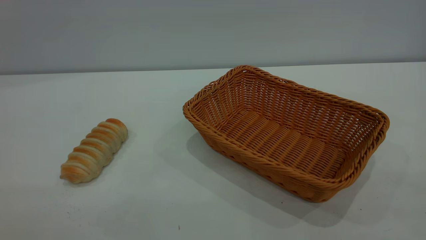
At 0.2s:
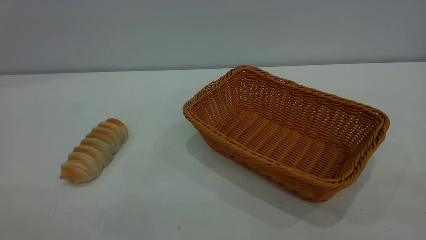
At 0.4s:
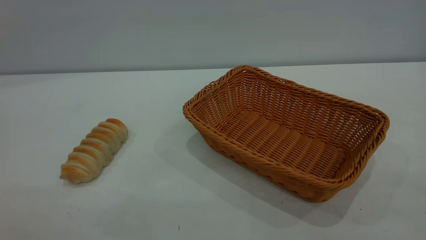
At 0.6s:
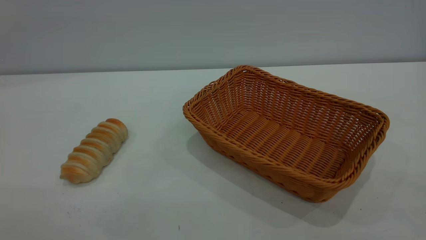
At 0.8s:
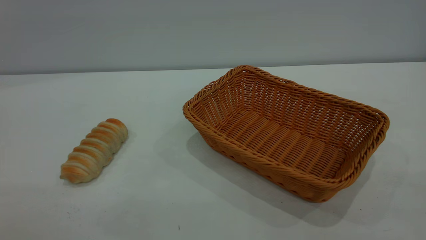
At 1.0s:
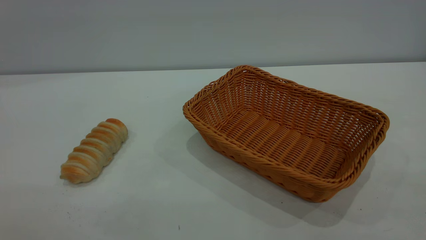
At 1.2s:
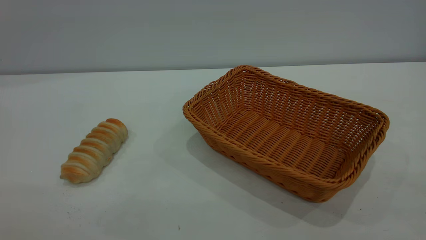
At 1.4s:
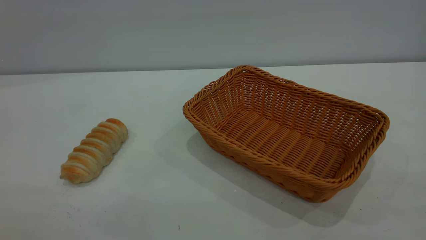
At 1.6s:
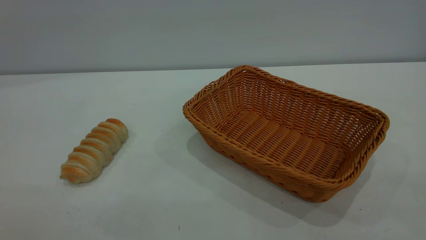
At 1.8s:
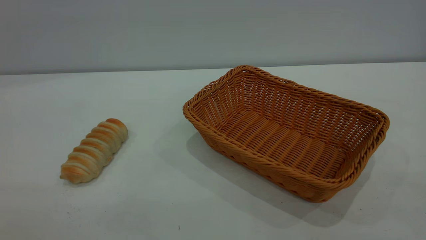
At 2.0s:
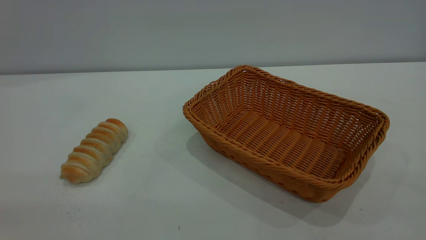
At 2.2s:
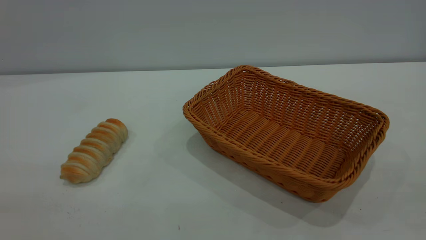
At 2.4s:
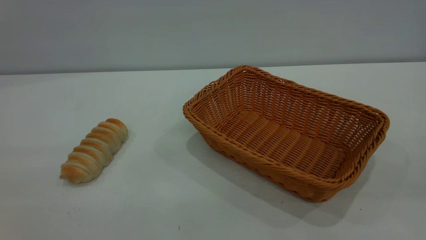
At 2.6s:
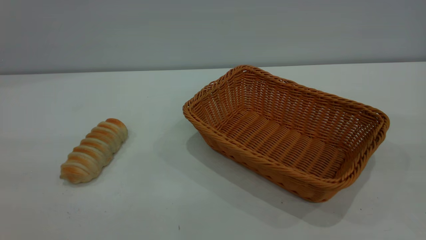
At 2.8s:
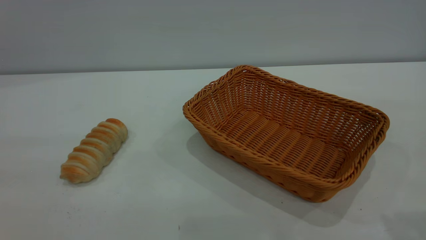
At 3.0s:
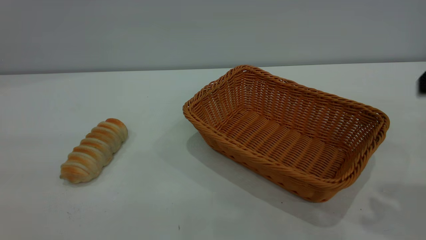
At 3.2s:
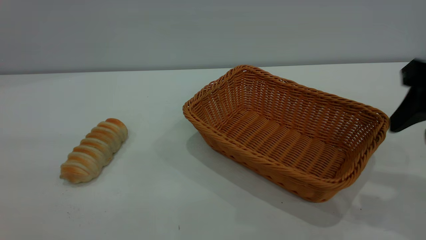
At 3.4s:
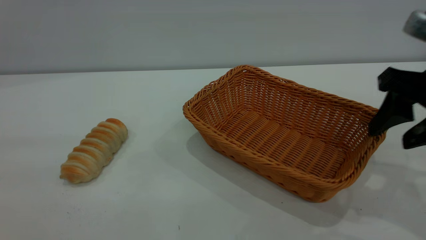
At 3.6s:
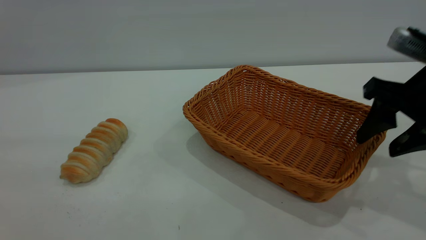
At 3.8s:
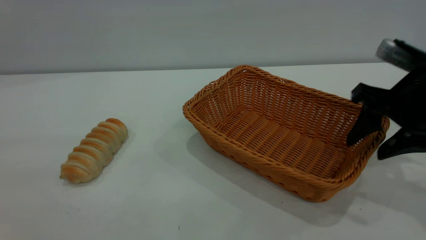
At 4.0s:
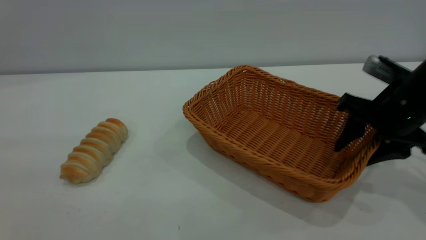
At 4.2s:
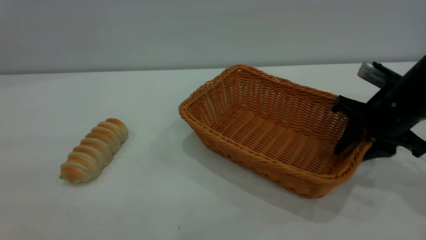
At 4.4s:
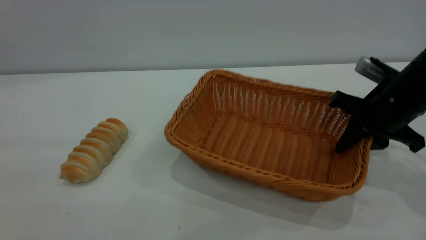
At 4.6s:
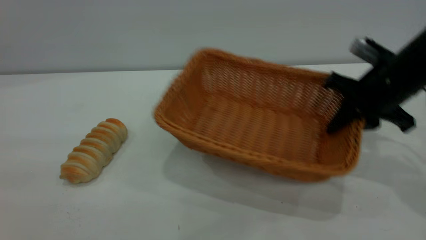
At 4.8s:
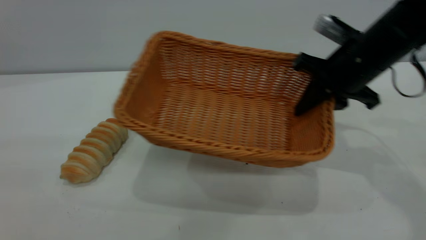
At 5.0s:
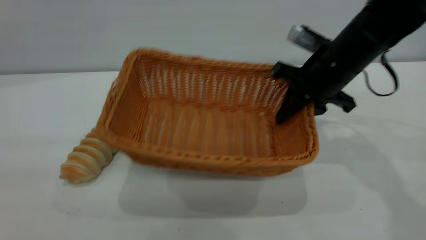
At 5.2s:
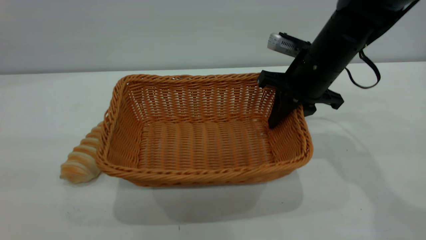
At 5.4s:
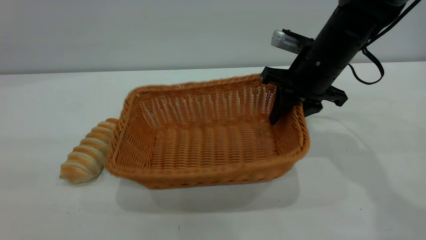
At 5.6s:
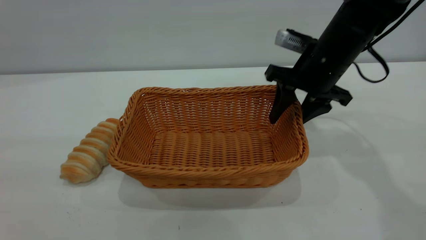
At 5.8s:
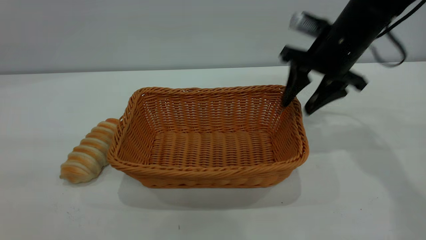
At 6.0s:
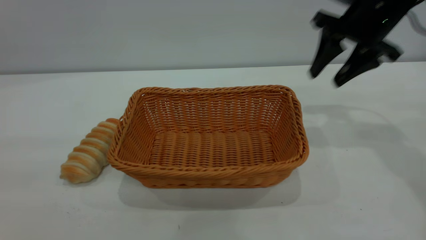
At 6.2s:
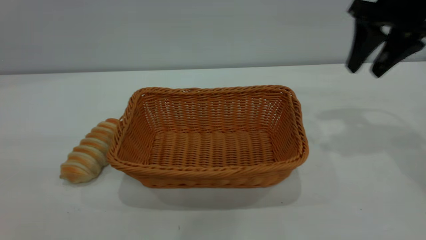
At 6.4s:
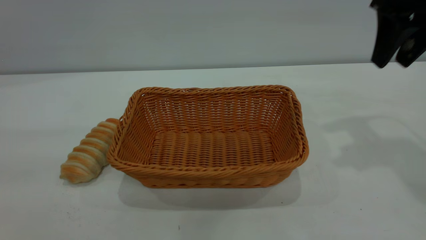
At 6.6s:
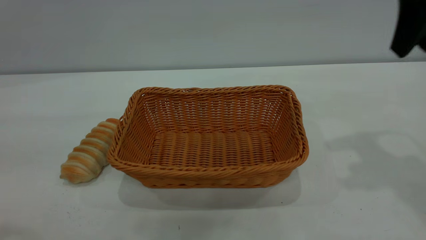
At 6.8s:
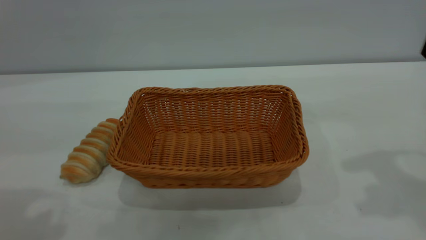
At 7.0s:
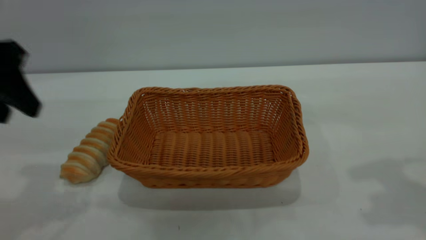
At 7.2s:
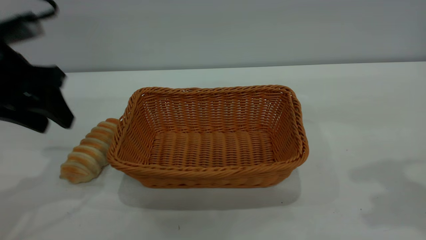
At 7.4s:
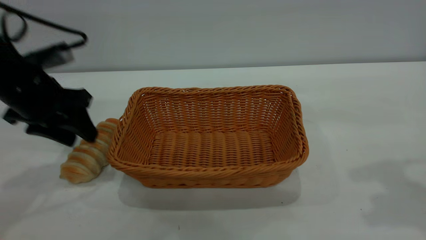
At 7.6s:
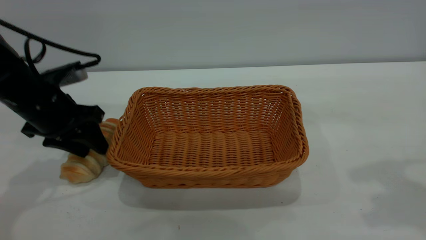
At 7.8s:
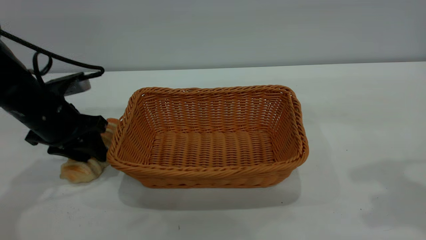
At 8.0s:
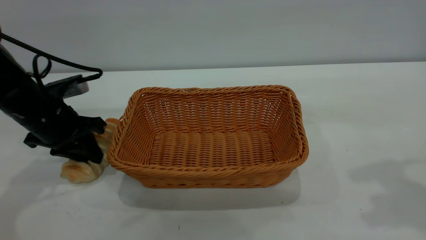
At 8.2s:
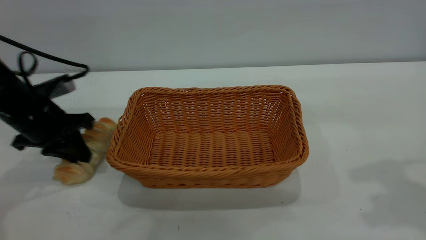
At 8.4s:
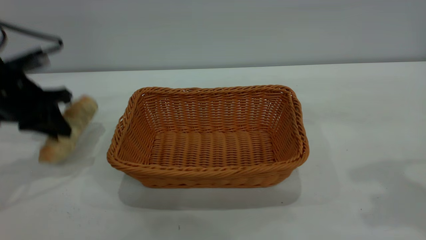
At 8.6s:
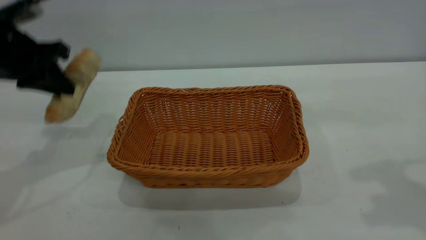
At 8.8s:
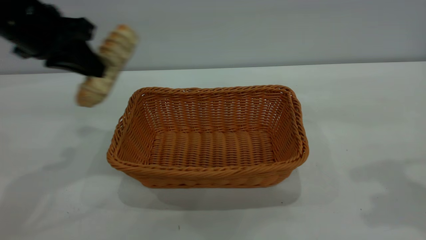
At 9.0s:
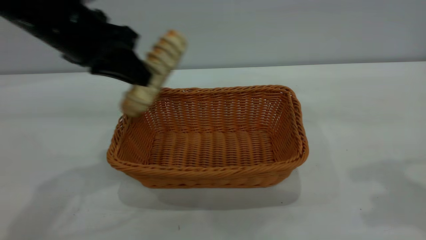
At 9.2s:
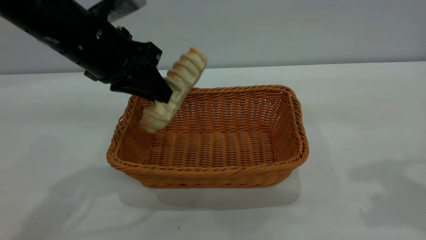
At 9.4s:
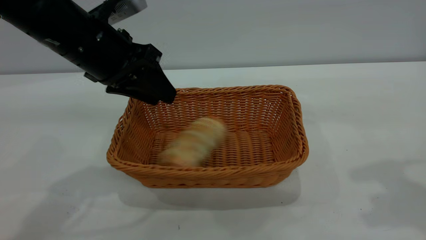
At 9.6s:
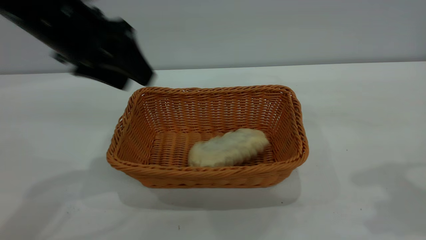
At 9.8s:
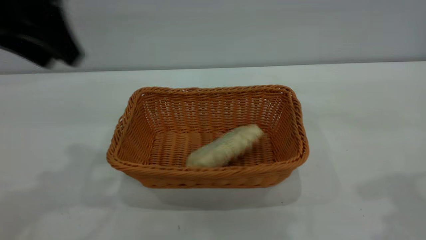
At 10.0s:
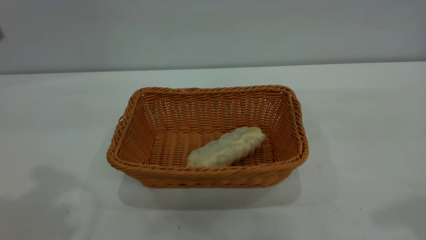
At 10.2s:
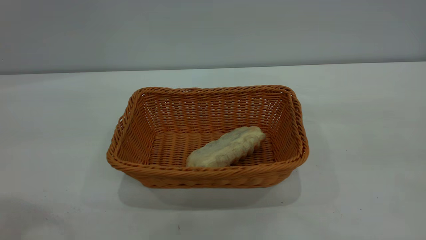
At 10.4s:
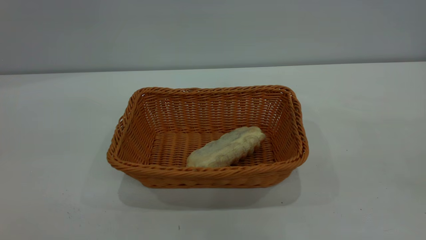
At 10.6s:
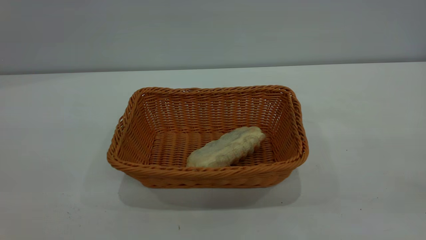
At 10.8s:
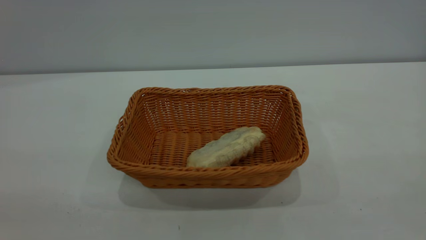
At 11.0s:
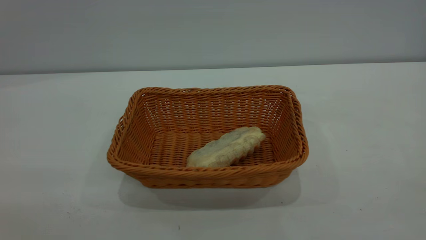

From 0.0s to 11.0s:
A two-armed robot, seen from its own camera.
Task of the whole recording: One hand grasps the yellow basket and places it in the middle of the table, while the other hand picks up the long bread and puts it into the yellow basket.
Step, from 0.0s to 5.8s: Move the basket to the center of view.
Step, from 8.6s to 9.6s: place the bread into the basket.
From 0.0s to 1.6s: Both grippers stay put.
From 1.6s to 3.2s: The right gripper moves forward and downward, roughly 30 cm.
From 3.2s to 4.8s: The right gripper goes approximately 15 cm forward and to the left, and closes its fingers.
From 4.8s to 6.2s: The right gripper travels upward and to the right by roughly 10 cm, and opens.
From 6.2s to 7.8s: The left gripper goes some 40 cm forward and downward. Meanwhile the right gripper moves backward and upward, some 15 cm.
From 7.8s to 9.4s: The left gripper moves upward and to the right, some 15 cm, and closes, then reopens.
From 9.4s to 11.0s: The right gripper goes about 30 cm backward. The left gripper moves backward and upward, some 35 cm.

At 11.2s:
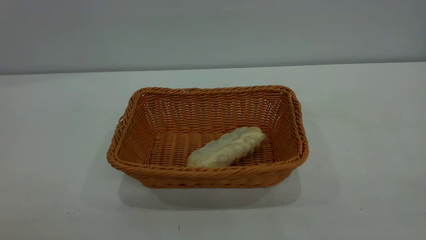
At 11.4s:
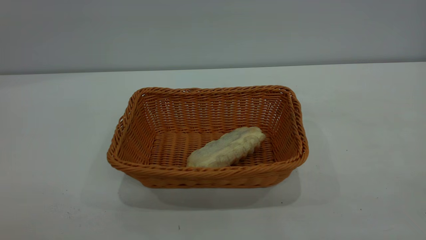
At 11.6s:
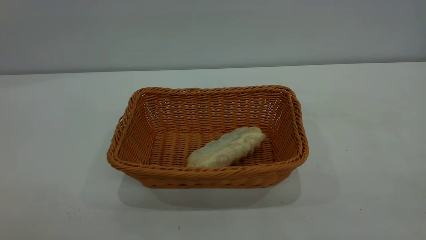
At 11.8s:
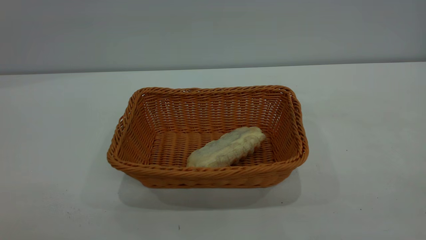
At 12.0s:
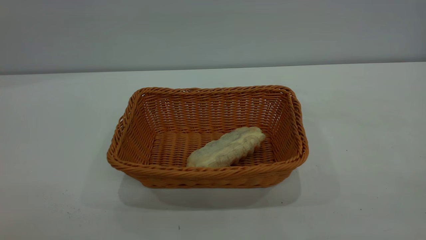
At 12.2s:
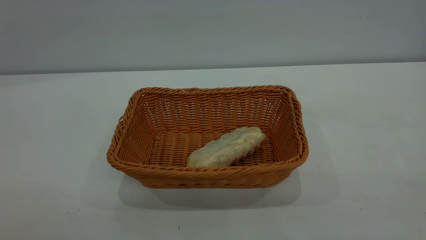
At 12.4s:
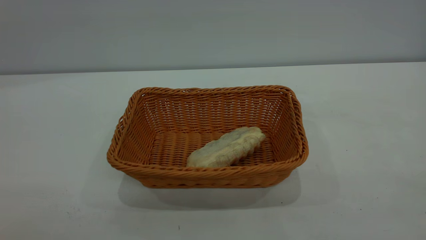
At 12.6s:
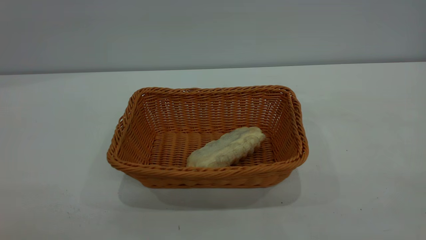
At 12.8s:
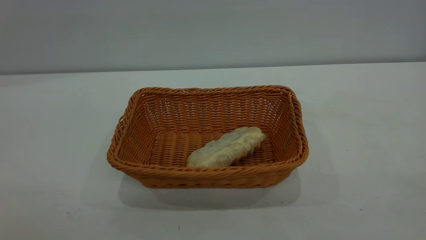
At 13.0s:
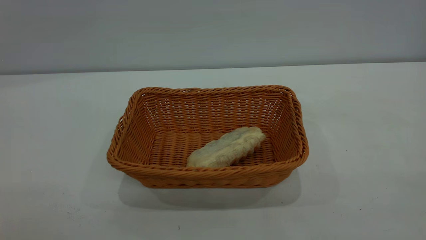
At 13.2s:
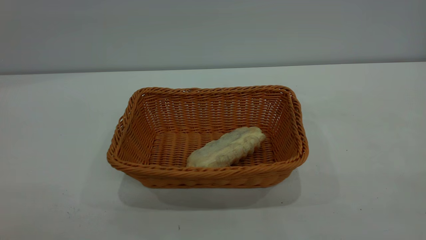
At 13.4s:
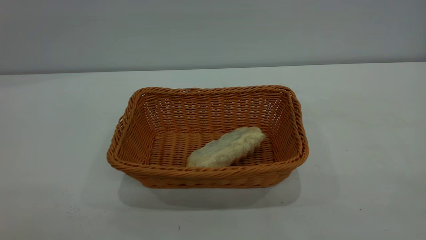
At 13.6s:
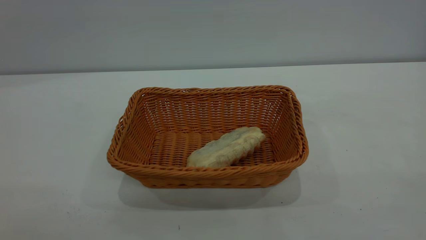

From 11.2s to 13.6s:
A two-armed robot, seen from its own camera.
Task of the whole recording: One hand grasps the yellow basket and places it in the middle of the table, while the other hand picks up the long bread and puts it into the yellow basket.
From 12.4s to 13.6s: Both grippers stay put.
